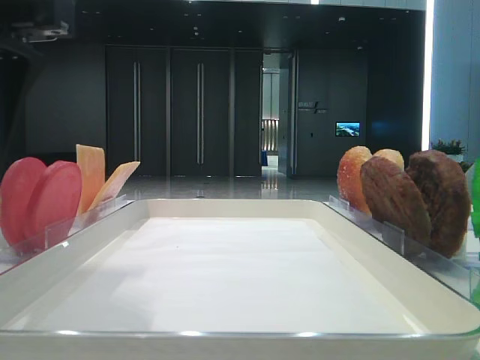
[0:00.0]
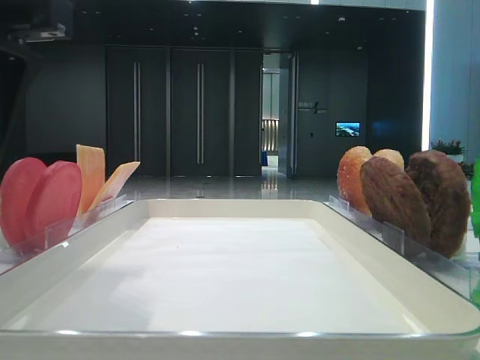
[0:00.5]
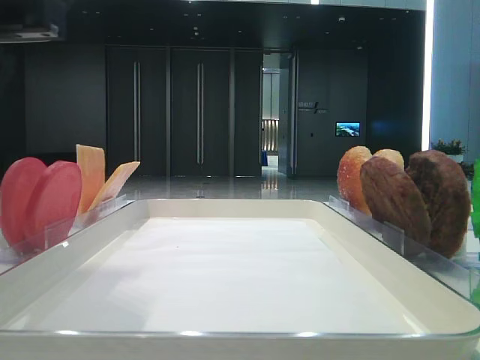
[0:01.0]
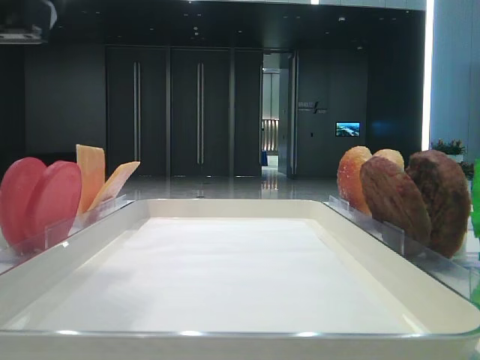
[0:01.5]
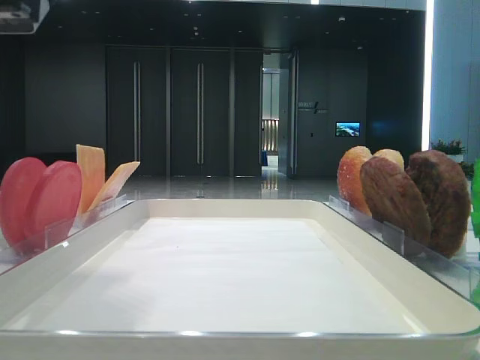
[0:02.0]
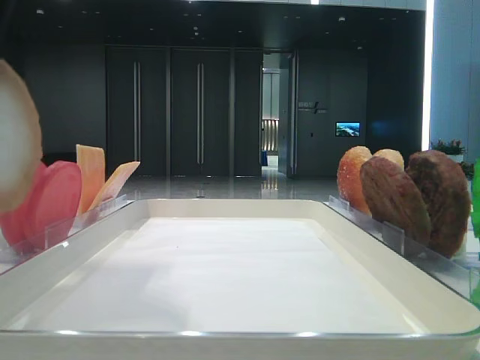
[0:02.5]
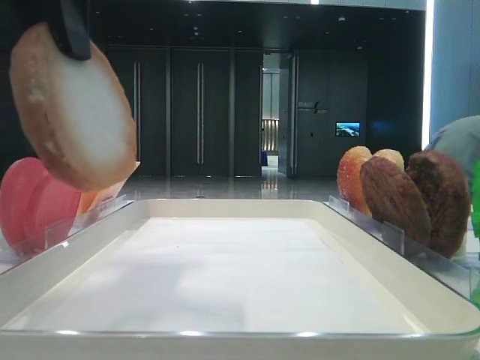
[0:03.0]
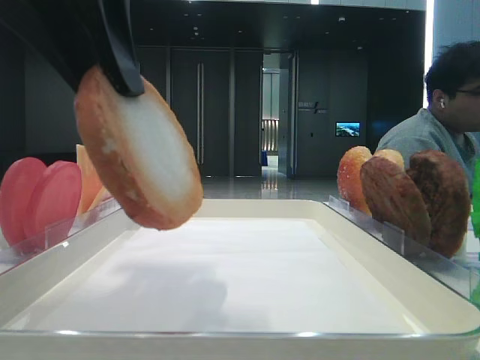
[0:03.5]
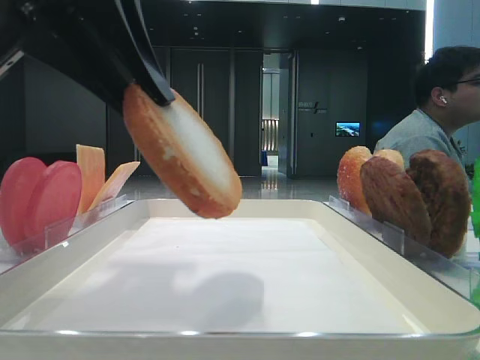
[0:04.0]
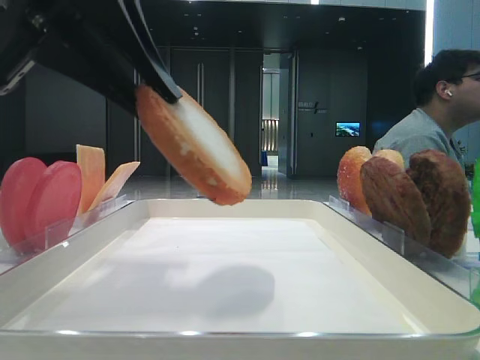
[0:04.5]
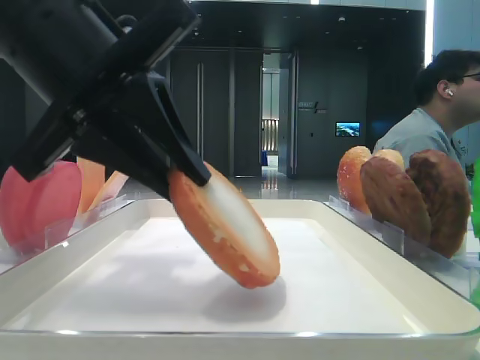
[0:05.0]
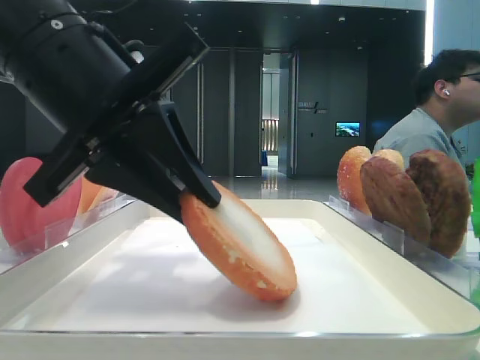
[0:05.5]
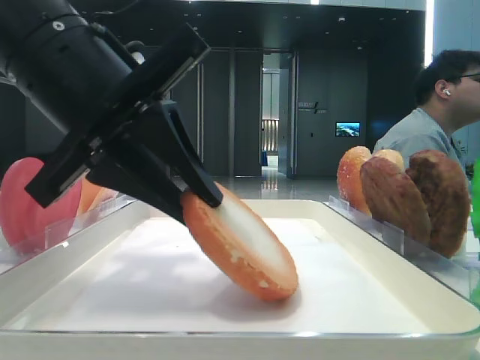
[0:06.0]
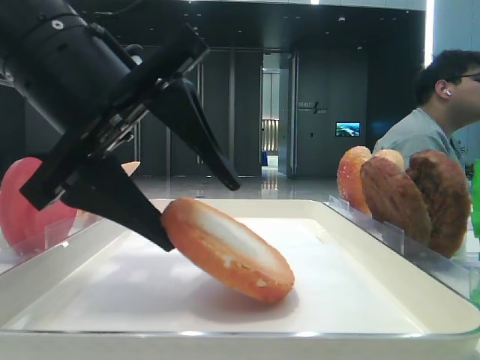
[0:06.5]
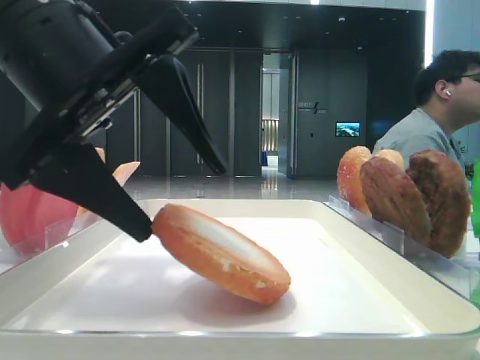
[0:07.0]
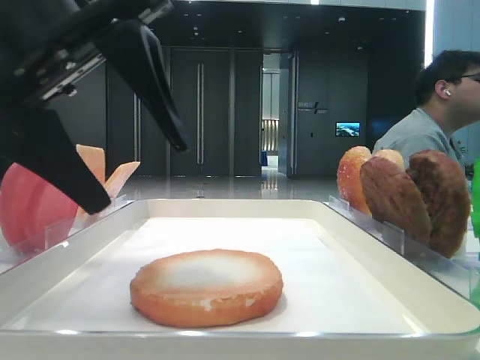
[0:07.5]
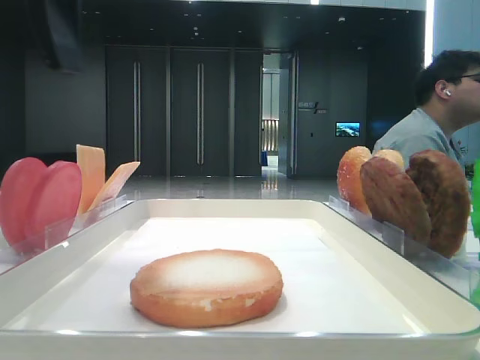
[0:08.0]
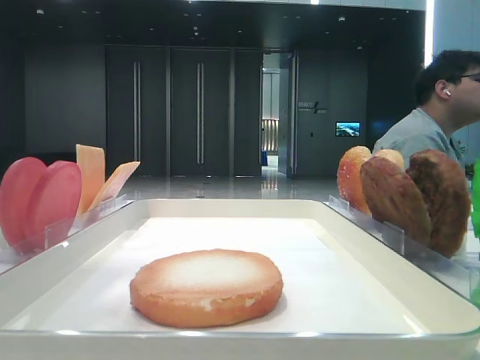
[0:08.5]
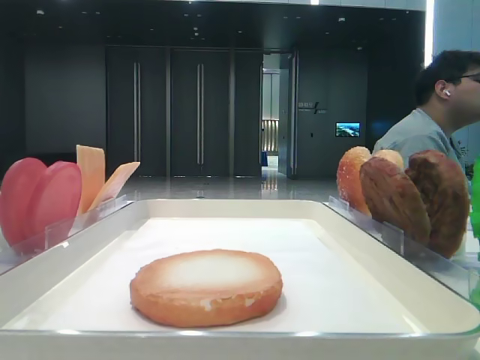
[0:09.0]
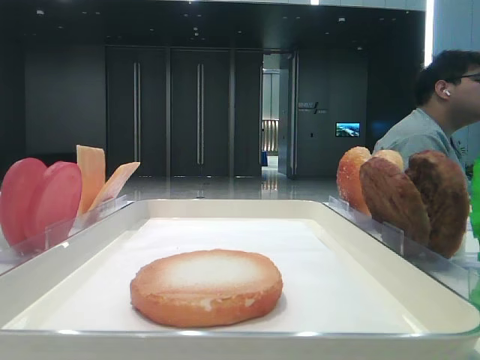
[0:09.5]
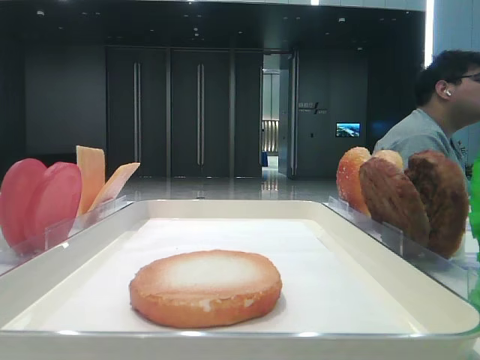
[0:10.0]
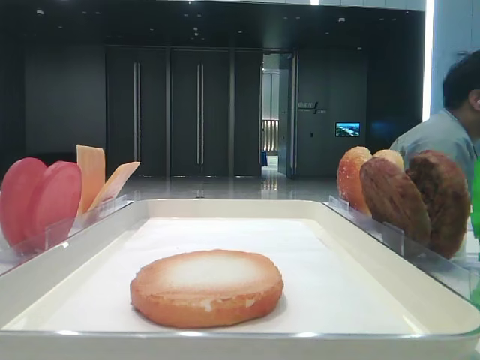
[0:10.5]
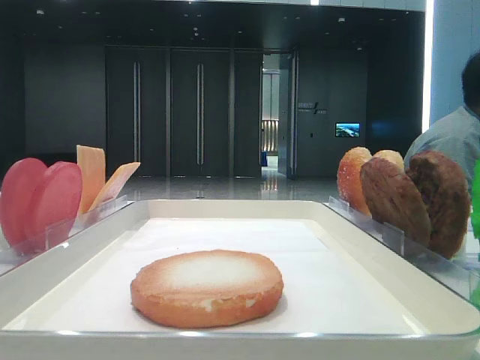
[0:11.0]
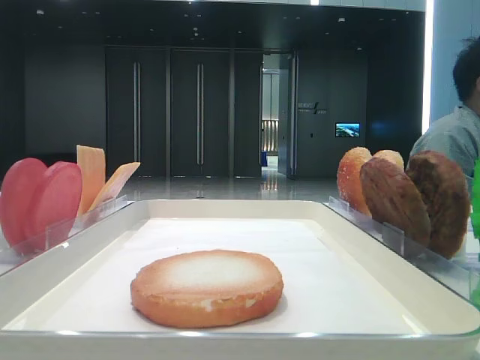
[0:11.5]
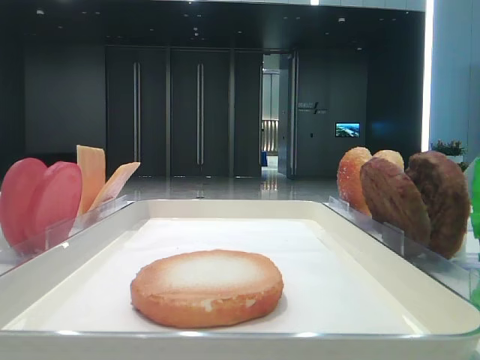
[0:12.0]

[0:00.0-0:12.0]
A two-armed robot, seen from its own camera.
Step, 0:01.0 to 0:07.0: Place the bottom bread slice on the tray with the left hand.
0:00.0 to 0:02.0: The left gripper closes its fingers.
0:04.0 to 0:06.0: The left gripper goes roughly 5 cm downward.
0:06.0 to 0:08.0: The left gripper is displaced upward by roughly 10 cm, and opens up.
0:08.0 to 0:10.0: The left gripper goes some 25 cm to the left, backward and upward.

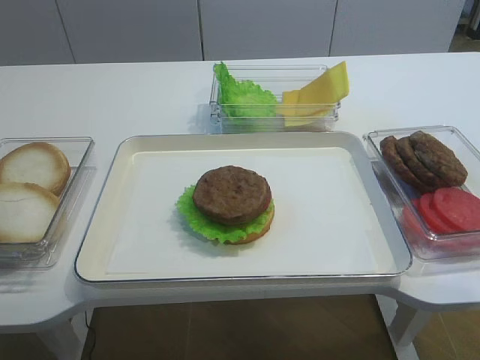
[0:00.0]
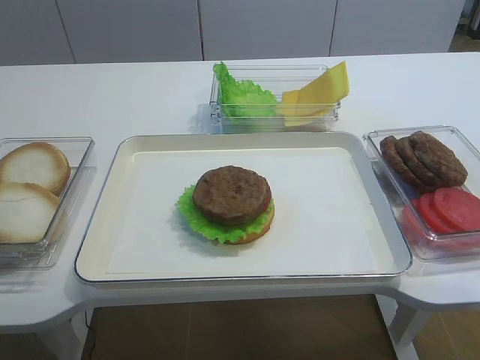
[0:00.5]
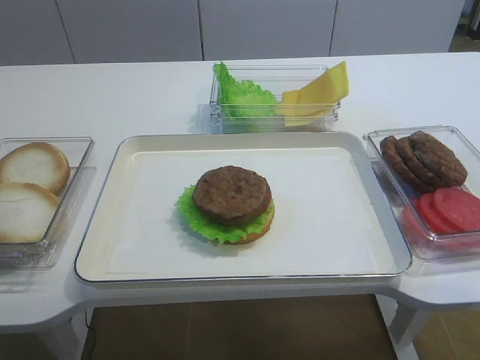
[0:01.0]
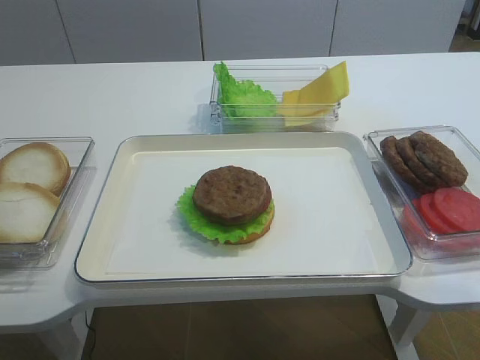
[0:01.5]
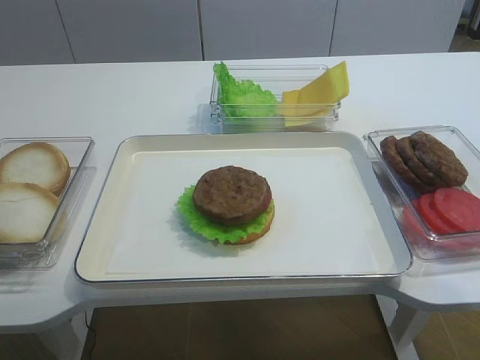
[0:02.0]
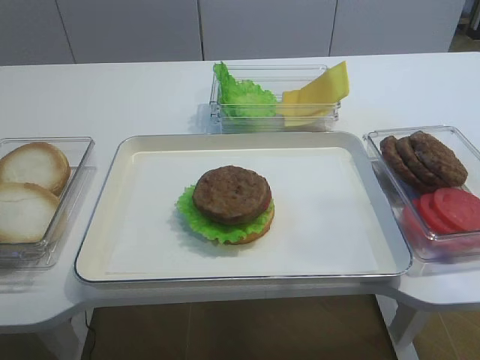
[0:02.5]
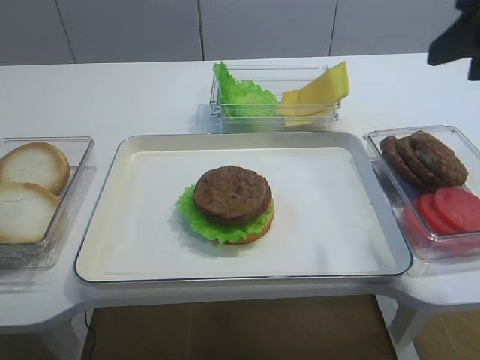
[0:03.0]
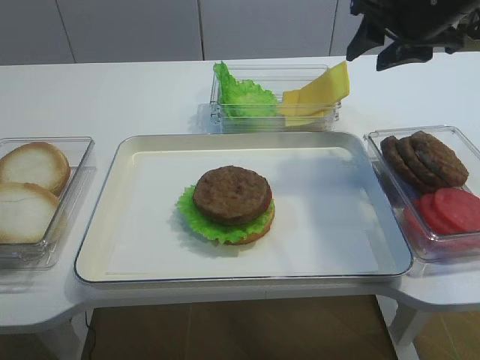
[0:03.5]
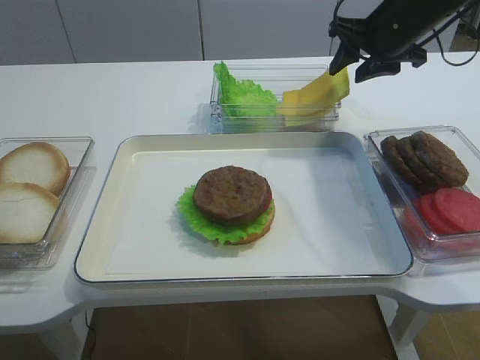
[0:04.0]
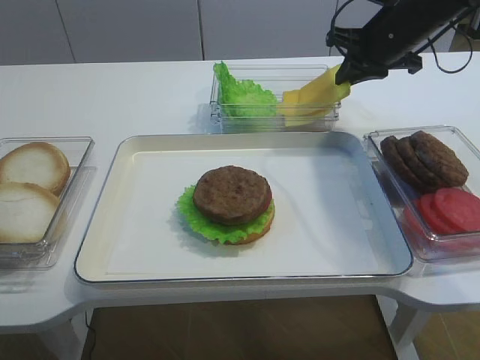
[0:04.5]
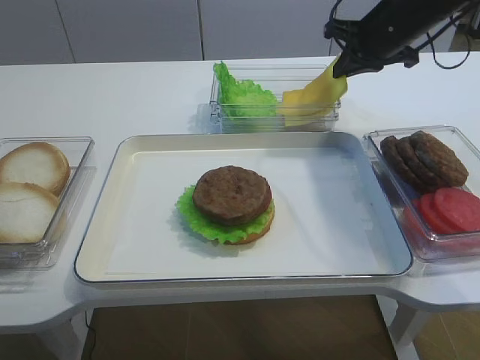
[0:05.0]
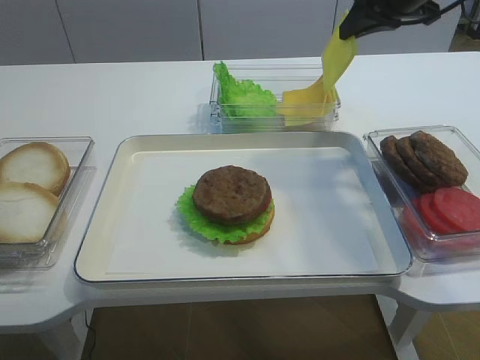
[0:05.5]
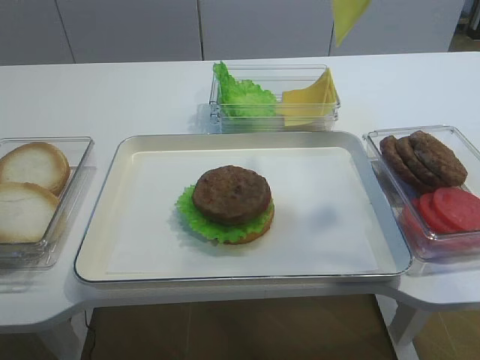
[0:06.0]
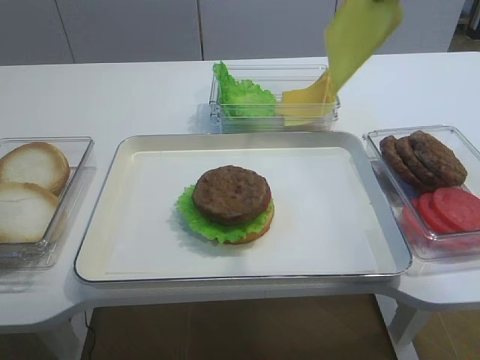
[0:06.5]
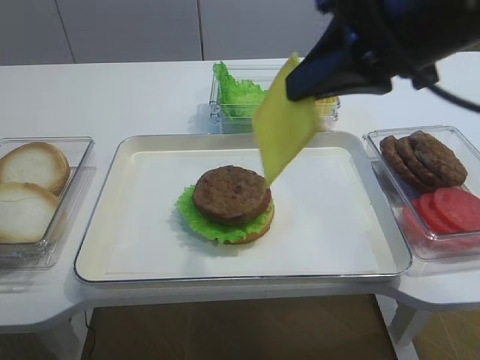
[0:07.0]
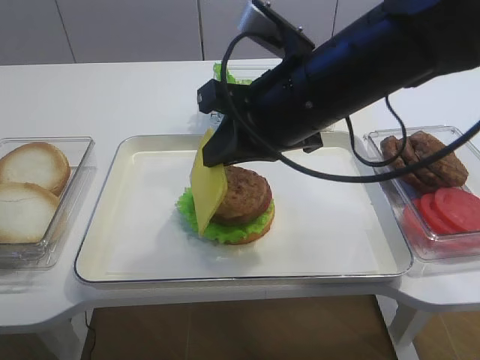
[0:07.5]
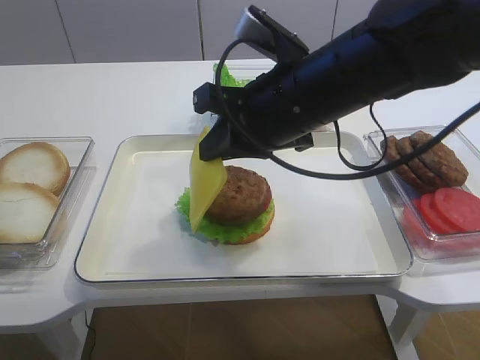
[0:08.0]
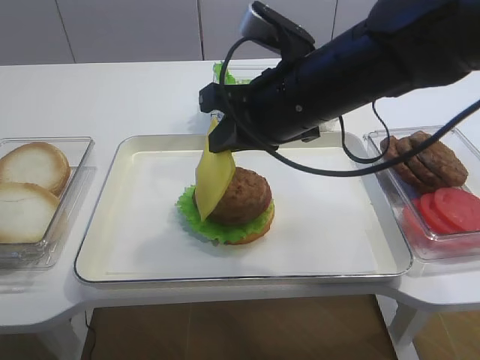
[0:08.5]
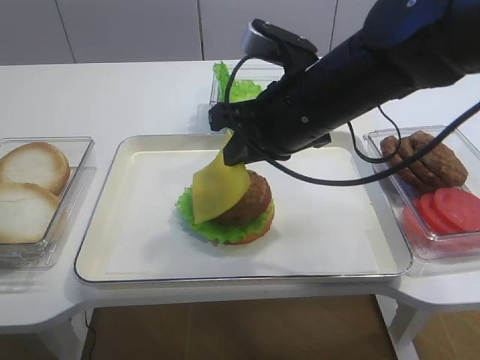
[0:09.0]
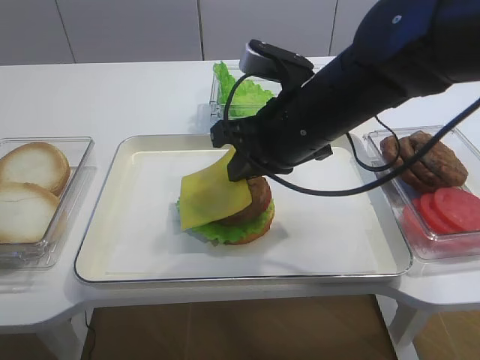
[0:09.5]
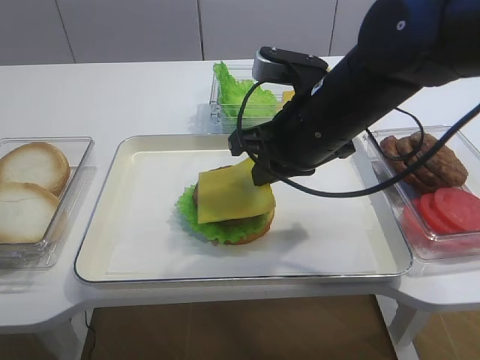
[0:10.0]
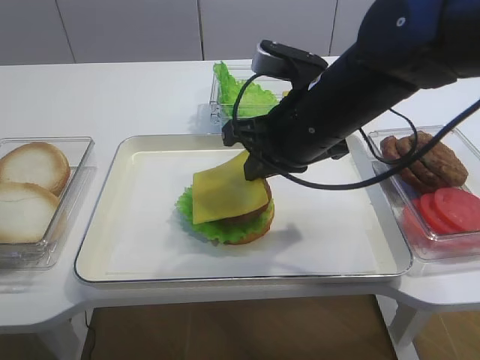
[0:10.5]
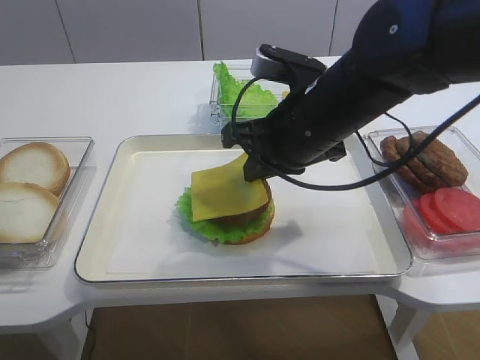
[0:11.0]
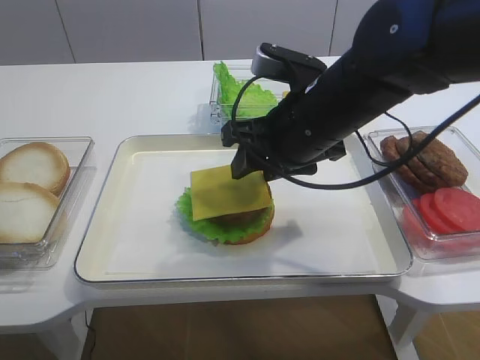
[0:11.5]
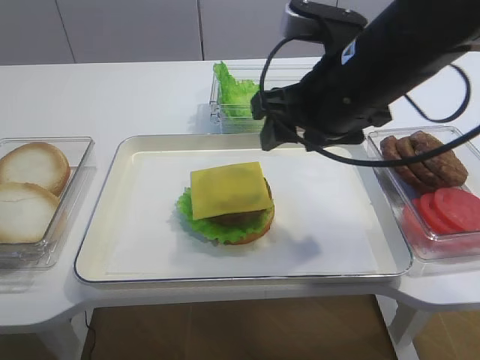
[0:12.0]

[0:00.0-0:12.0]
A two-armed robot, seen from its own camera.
Step, 0:00.0 to 0:05.5: Pick up the cheese slice with the right gripper.
Step, 0:06.0 to 0:11.5: Place the cheese slice on the cutlet with the right gripper.
0:02.0 to 0:04.0: The right gripper is displaced forward by some 40 cm.
0:04.0 to 0:06.0: The right gripper goes some 20 cm upward and backward, and closes up.
0:06.0 to 0:08.0: The right gripper goes some 20 cm downward, to the left and backward.
0:08.0 to 0:10.0: There are only small adjustments of the grippers.
0:10.0 to 0:12.0: The right gripper opens.

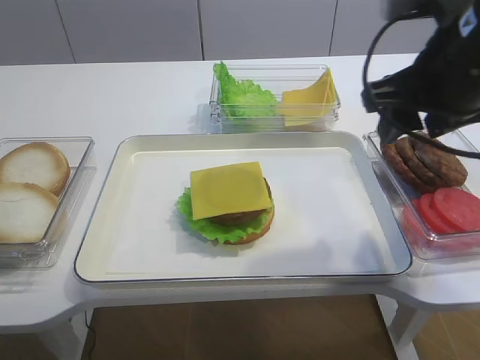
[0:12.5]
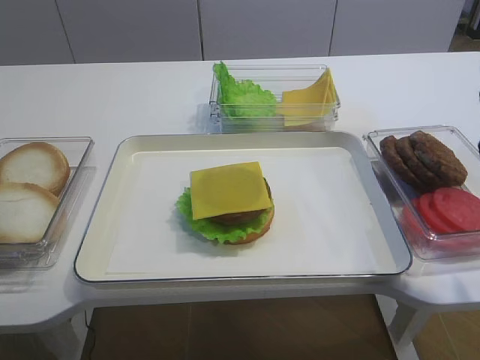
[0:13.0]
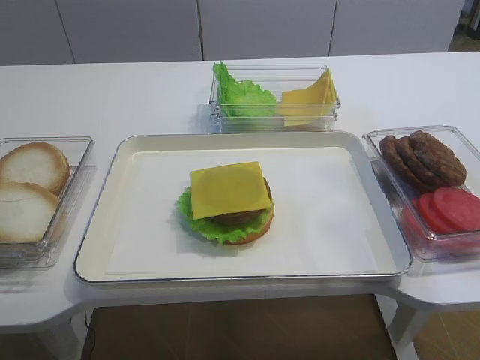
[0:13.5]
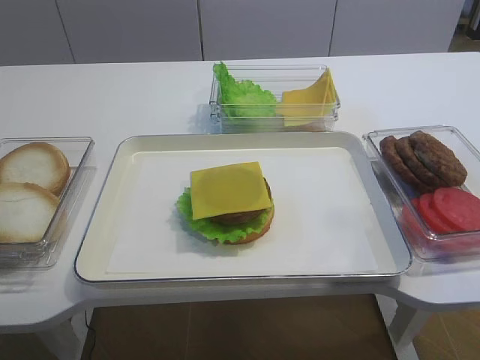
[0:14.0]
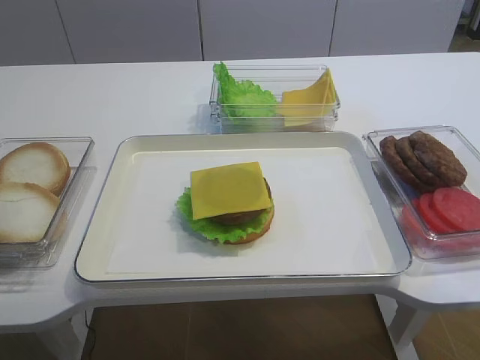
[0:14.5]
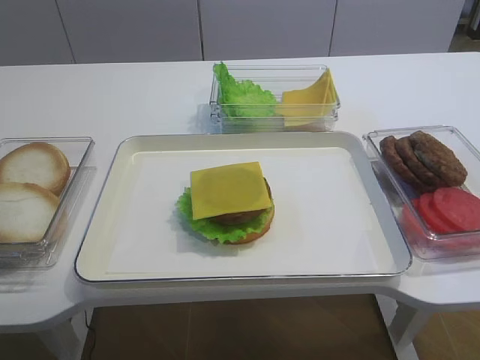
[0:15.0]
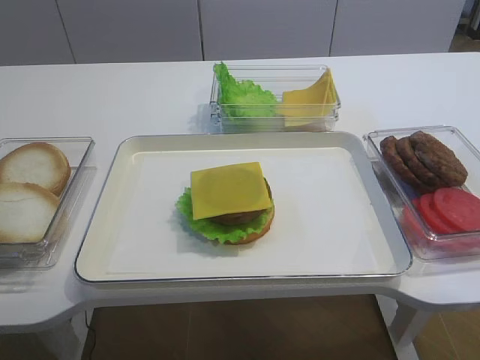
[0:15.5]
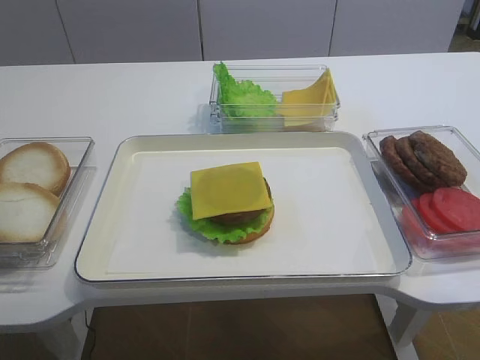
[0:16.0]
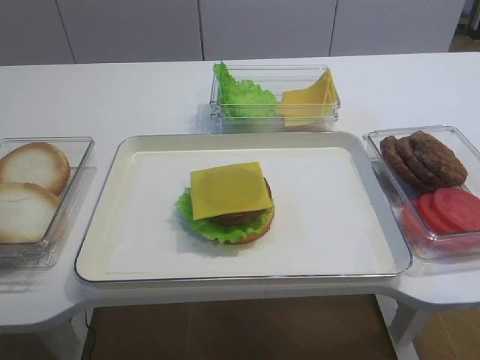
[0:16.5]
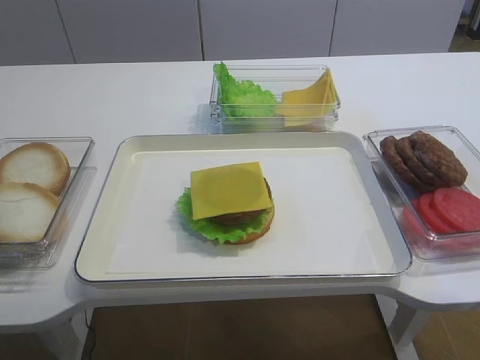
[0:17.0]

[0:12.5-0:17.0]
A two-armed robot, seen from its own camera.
0:12.5 to 0:14.5: The right gripper heads backward, covering approximately 30 cm.
